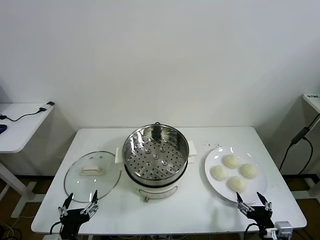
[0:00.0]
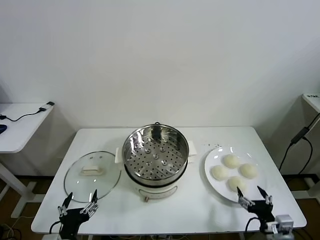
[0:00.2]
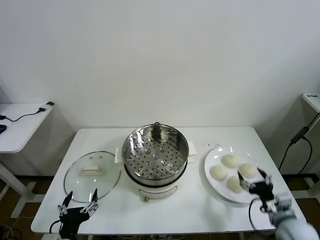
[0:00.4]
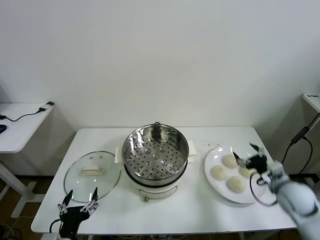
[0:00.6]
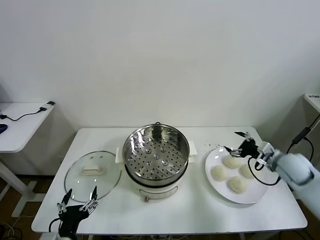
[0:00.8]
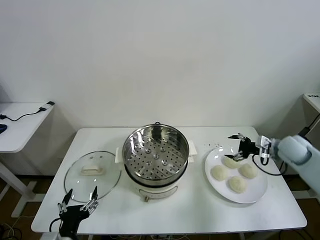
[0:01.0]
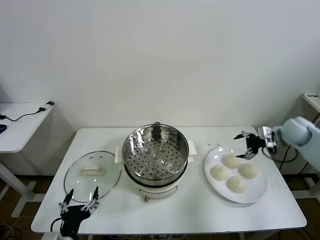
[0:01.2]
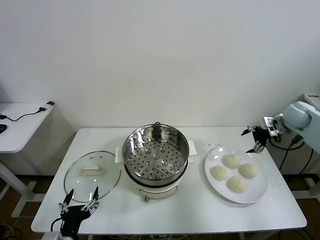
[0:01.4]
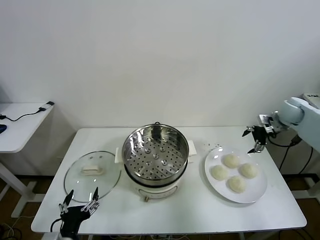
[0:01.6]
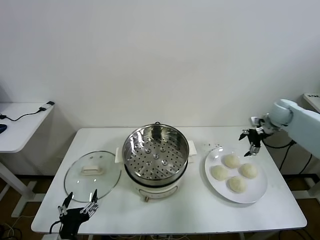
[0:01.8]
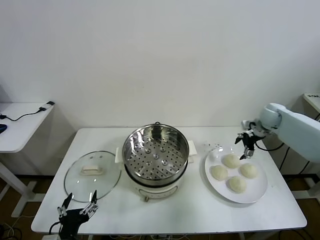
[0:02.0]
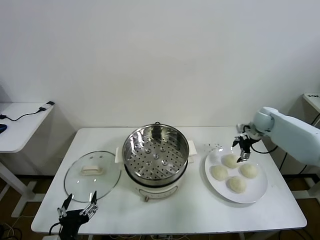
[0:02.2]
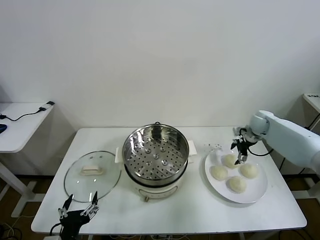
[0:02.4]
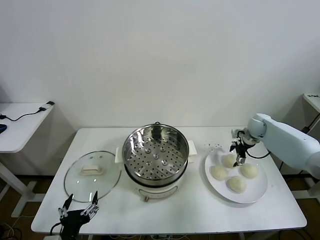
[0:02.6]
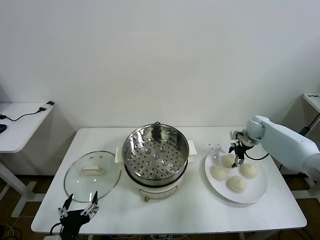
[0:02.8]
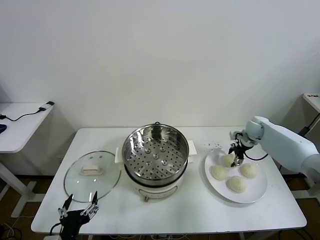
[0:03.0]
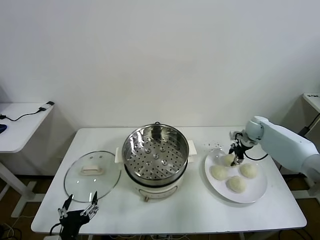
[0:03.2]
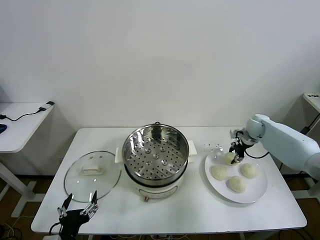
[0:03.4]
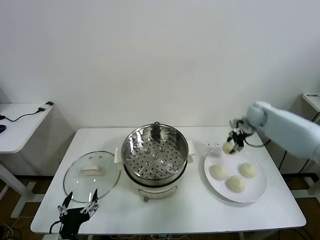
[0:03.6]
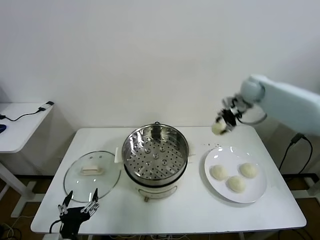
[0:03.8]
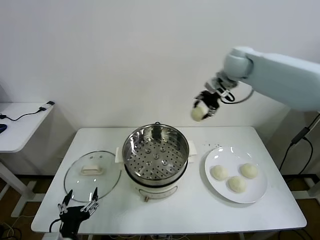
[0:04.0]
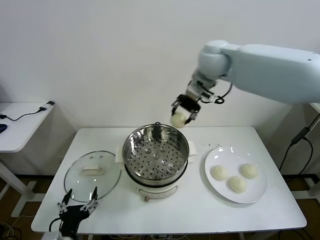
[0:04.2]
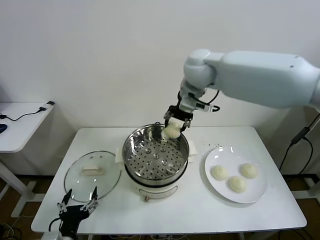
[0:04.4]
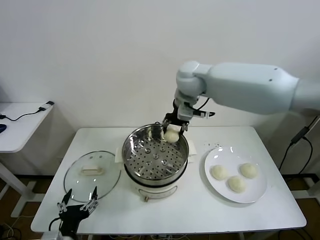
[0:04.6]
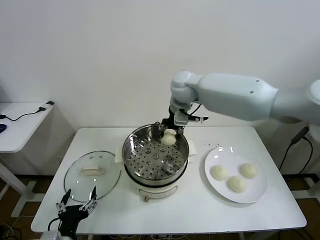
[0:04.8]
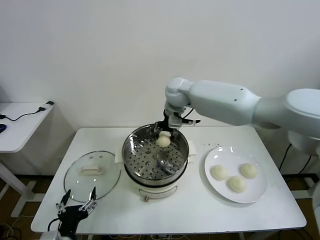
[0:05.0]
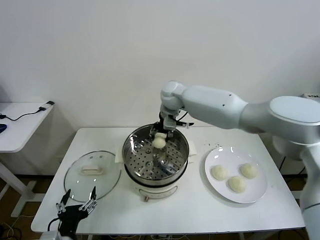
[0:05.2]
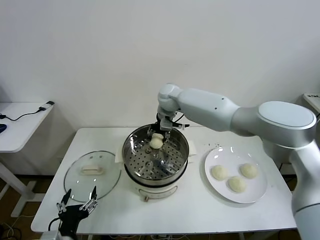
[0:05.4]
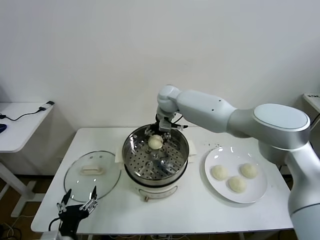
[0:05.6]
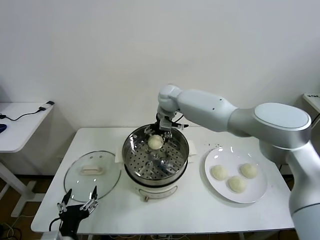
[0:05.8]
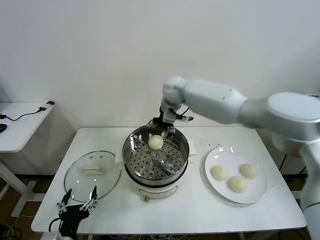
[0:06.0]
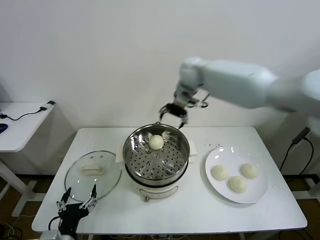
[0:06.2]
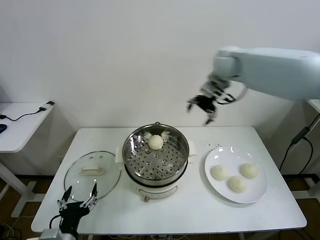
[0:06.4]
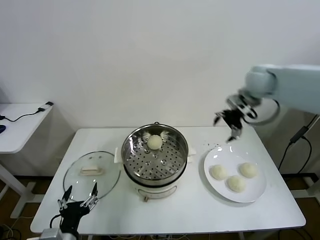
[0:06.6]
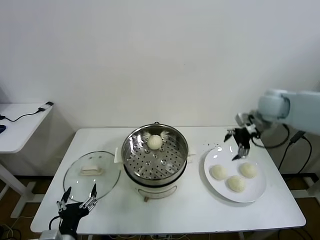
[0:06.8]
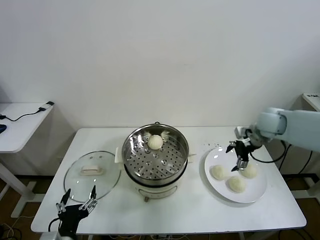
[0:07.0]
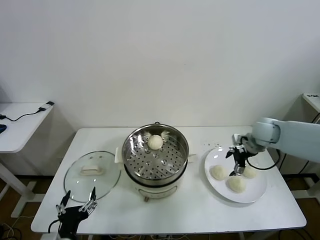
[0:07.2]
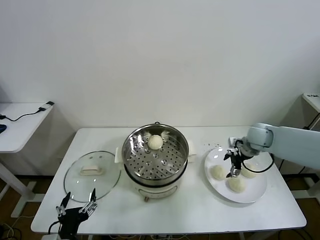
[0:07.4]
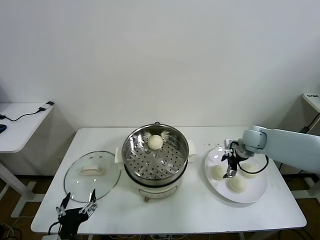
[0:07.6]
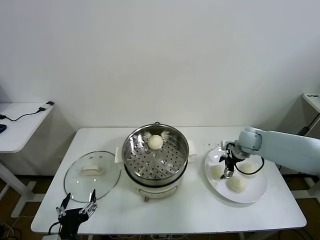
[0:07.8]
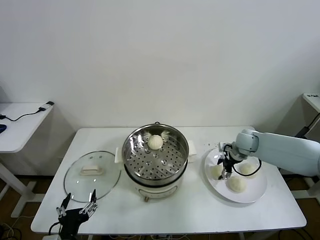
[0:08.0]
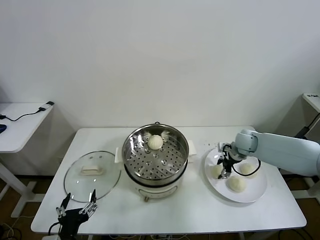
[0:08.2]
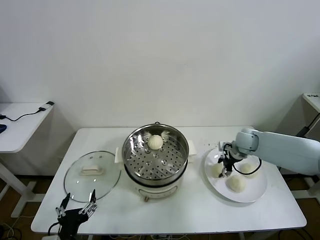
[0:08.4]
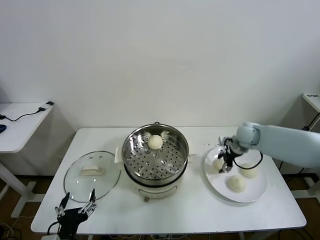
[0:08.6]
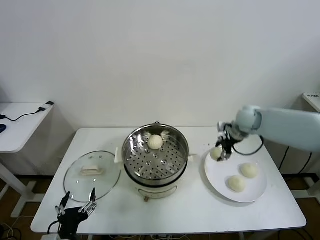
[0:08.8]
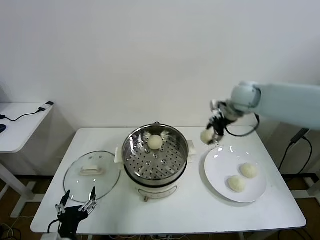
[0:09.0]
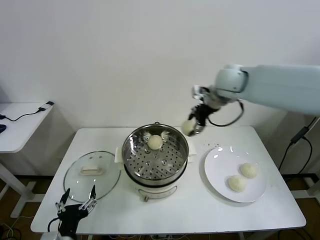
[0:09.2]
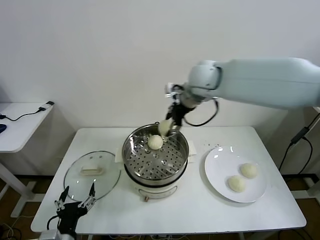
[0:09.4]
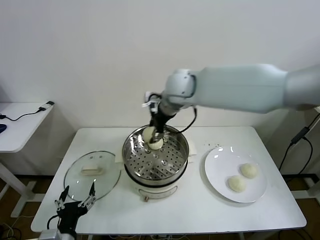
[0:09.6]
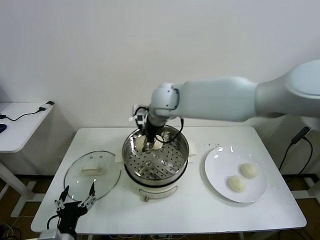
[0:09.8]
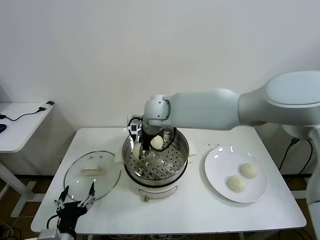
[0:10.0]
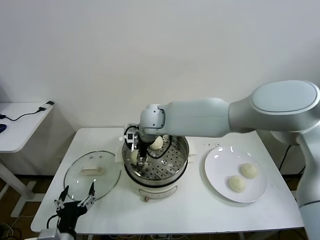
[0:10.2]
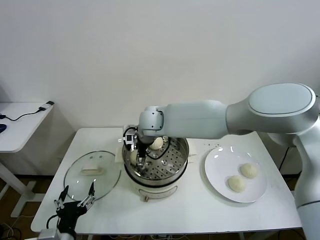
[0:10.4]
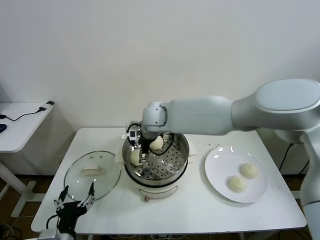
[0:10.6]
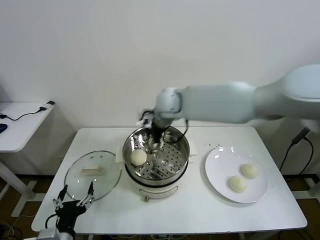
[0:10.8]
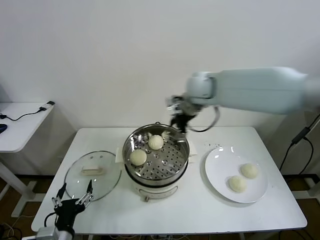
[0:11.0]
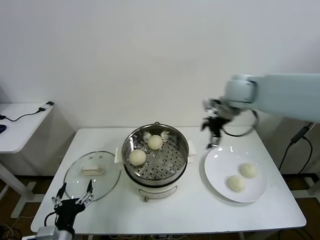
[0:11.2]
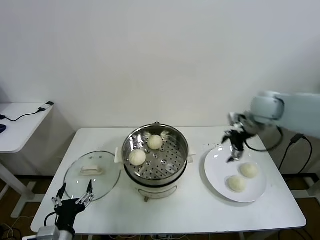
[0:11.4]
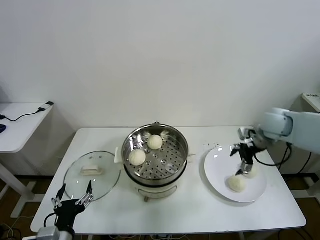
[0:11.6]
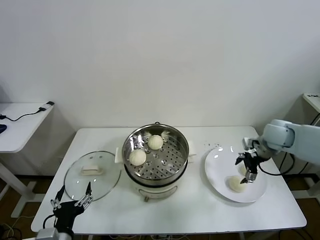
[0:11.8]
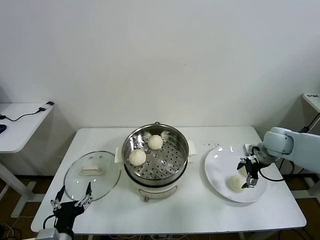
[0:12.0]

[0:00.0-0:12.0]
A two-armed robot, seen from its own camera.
Task of the whole recording: take steamed baozi put them in steamer then cover it.
Step, 0.0 to 3.2 s: Grasp the baozi in the plate with right gripper.
Step, 3.4 to 5.6 s: Place the baozi on the steamer with right gripper.
Step, 5.8 to 8.0 s: Grasp the baozi in the plate with right gripper.
Step, 8.4 to 10.6 s: Place the baozi on the steamer with right gripper.
1.6 to 3.0 s: The right gripper moves downward and to the left, approximately 15 cm, and closes its fingers.
3.0 to 4.4 s: The right gripper is displaced to the left and upward by about 40 cm.
4.4 to 6.0 s: The right gripper heads forward and downward, covering some 10 cm, and opens its fingers.
6.0 to 7.6 s: The right gripper shifts some 35 cm to the right and downward.
7.6 to 9.0 s: The right gripper is displaced upward and to the left by about 25 cm, and closes its fingers.
9.0 to 10.4 s: The right gripper moves to the left, about 30 cm, and opens.
10.4 to 12.0 s: The right gripper shifts approximately 40 cm to the right.

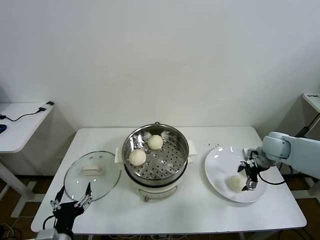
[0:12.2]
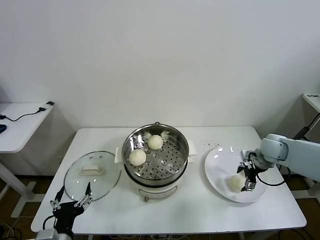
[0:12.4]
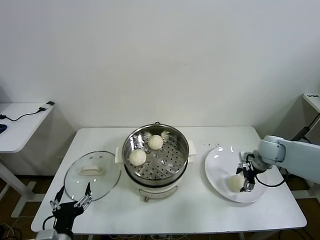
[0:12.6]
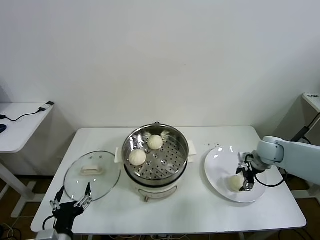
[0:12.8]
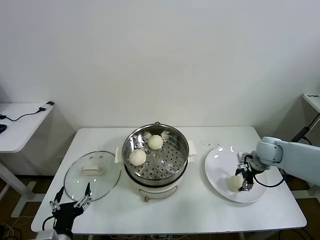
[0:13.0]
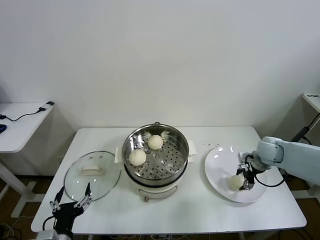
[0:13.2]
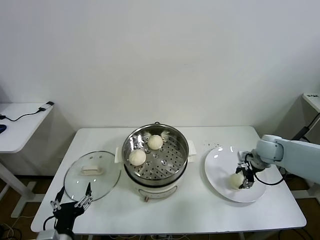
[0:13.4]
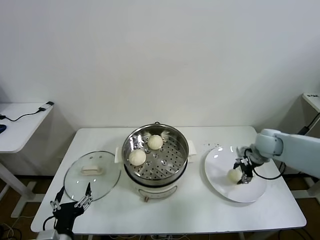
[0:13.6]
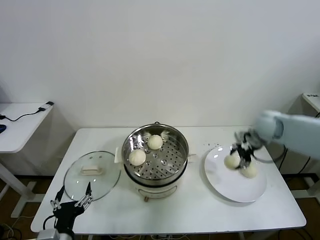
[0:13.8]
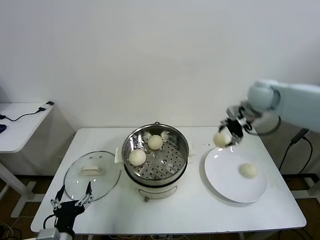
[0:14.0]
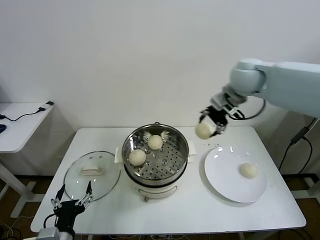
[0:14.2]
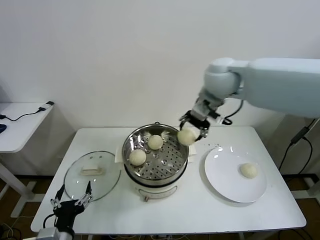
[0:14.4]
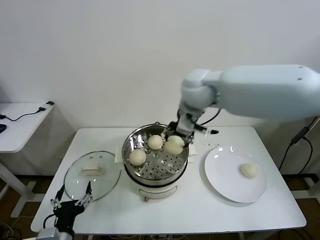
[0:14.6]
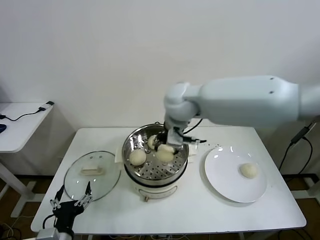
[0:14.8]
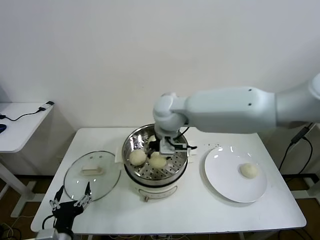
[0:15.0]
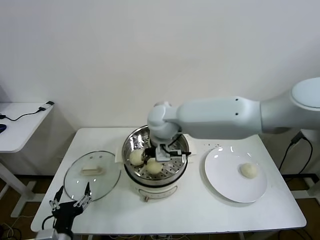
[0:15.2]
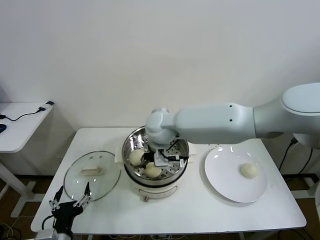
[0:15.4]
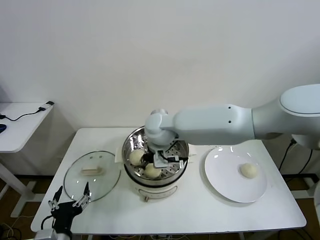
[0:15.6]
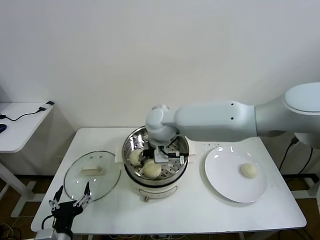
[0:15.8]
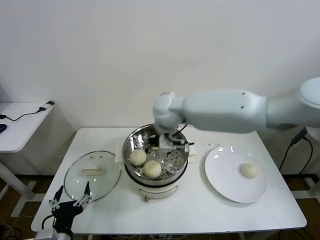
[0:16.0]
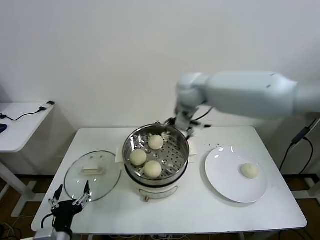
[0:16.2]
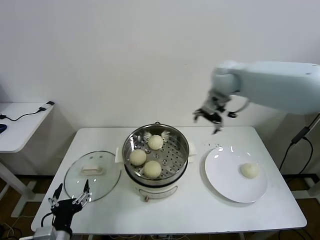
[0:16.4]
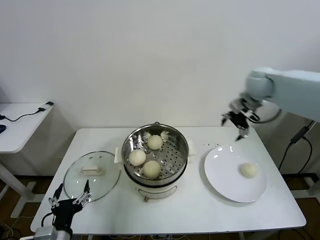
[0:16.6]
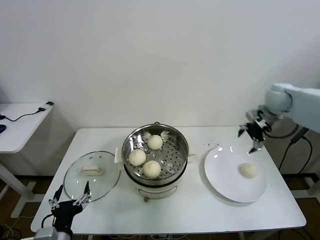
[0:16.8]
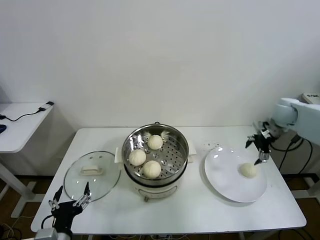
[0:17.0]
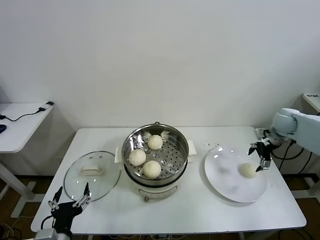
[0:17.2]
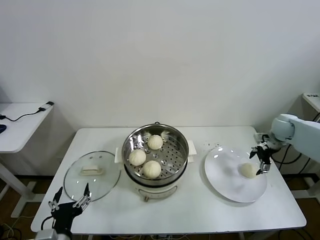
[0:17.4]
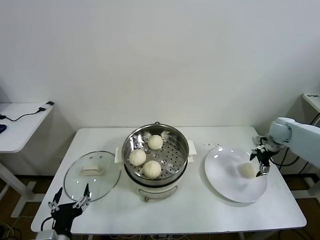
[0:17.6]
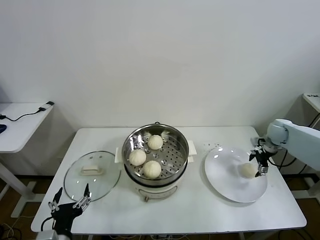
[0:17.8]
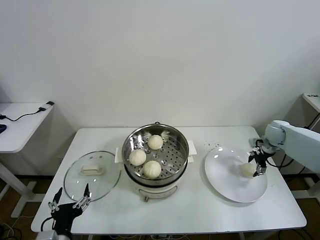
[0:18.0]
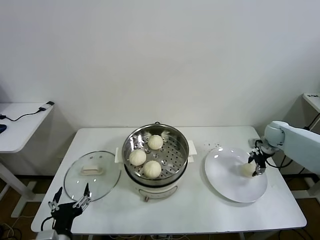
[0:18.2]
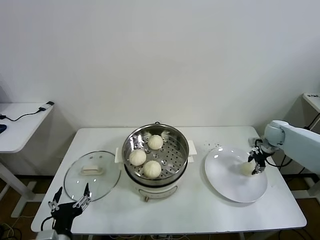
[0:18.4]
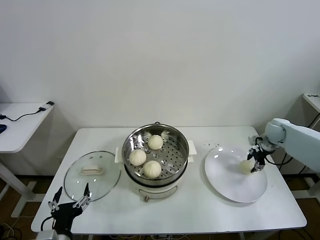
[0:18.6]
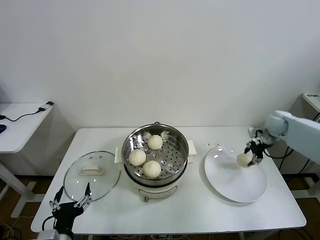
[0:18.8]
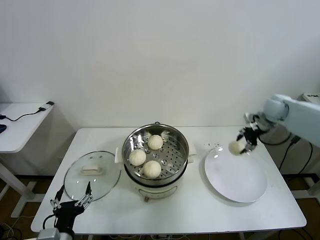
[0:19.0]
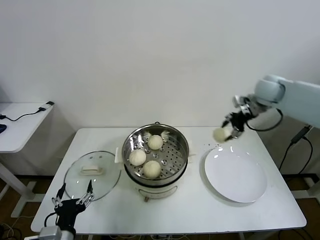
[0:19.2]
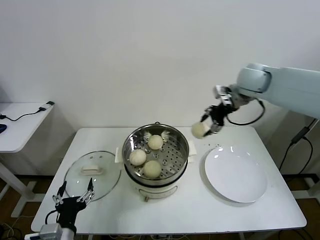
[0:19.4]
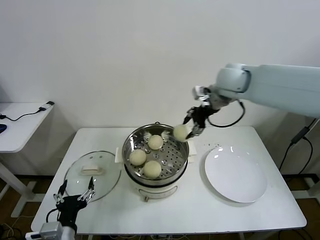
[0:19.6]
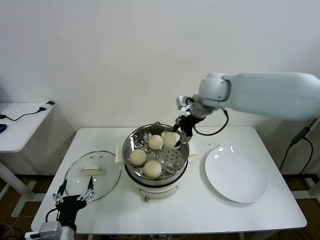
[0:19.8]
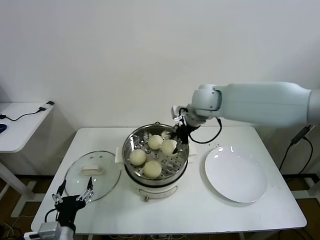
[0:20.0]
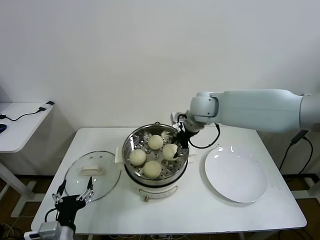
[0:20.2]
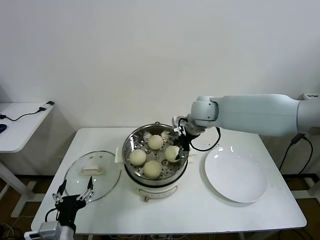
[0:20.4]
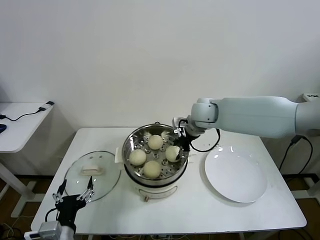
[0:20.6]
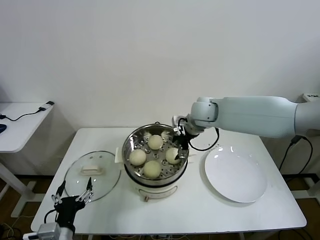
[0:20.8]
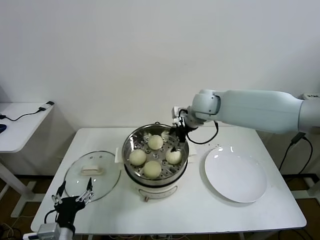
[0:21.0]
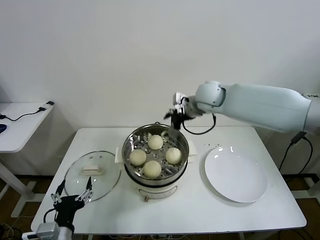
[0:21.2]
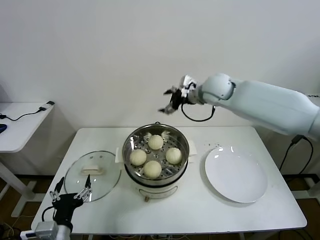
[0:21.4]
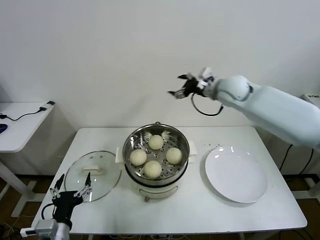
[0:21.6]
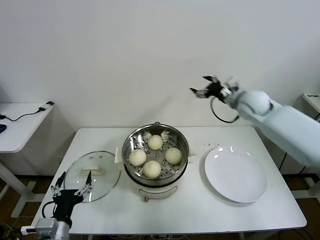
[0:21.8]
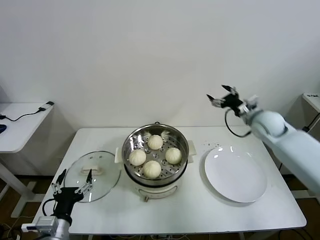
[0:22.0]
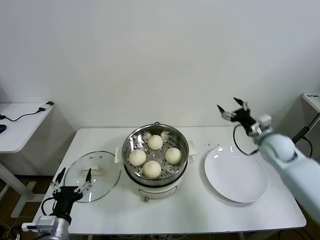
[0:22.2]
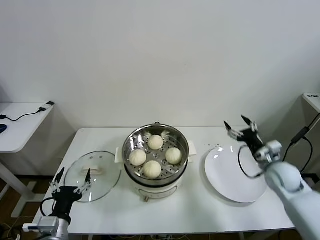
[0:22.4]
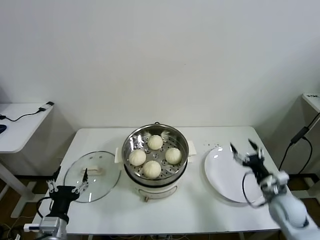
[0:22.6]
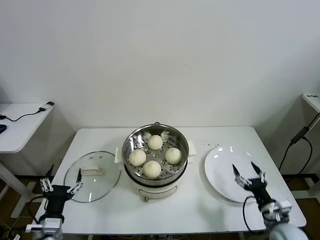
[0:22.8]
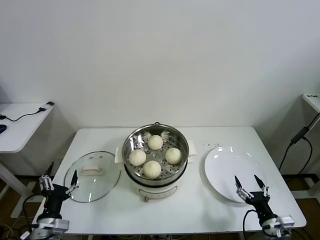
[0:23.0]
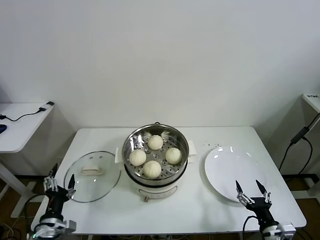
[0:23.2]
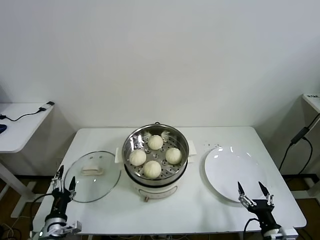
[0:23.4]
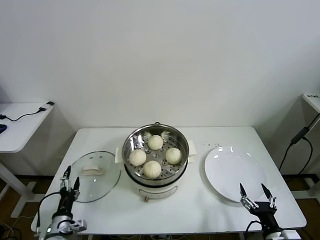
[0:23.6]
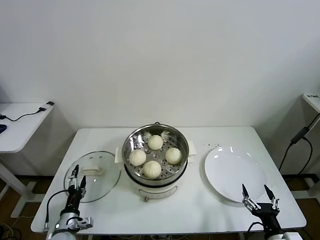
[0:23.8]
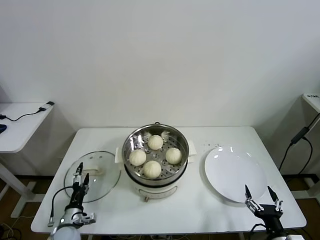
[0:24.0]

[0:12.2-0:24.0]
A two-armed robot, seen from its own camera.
Task of the whole recording: take steamed baozi put them in steamer then cover it.
Step, 13.2 to 15.8 s: Place the baozi on the steamer with right gripper.
Step, 16.0 to 18.2 s: Grasp the baozi in the plate with right gripper.
Step, 18.6 to 20.8 s: Place the baozi on the steamer with right gripper.
12.2 to 13.6 s: The right gripper closes.
13.6 to 15.2 s: The right gripper shifts roughly 35 cm to the left.
15.2 to 16.6 s: The right gripper goes some 35 cm to the right, and opens up.
16.6 to 18.2 s: The right gripper shifts approximately 25 cm downward and to the right, and closes up.
18.2 to 19.6 s: The right gripper goes roughly 35 cm to the left and upward.
19.6 to 21.0 s: The right gripper moves downward and to the left, some 10 cm, and opens up.
21.0 to 22.6 s: The right gripper shifts roughly 40 cm to the right, downward and backward.
22.6 to 24.0 s: The left gripper heads downward and forward, covering approximately 20 cm. Meanwhile the right gripper is displaced backward by about 20 cm.
